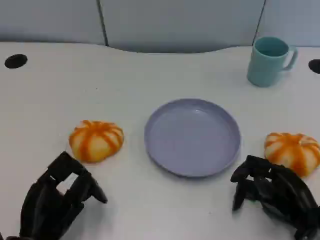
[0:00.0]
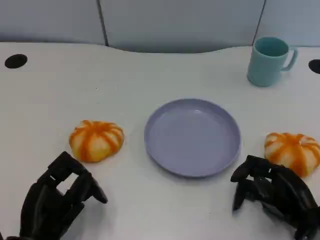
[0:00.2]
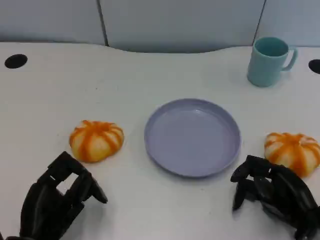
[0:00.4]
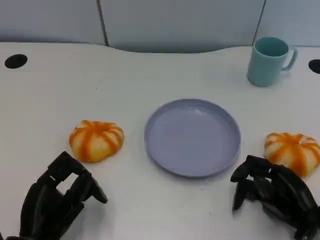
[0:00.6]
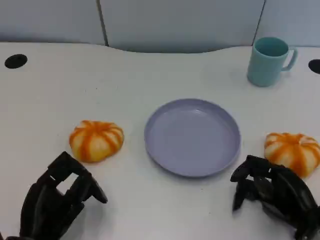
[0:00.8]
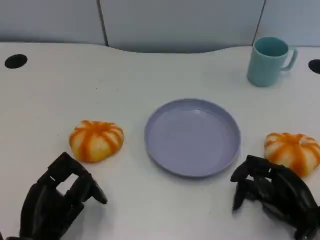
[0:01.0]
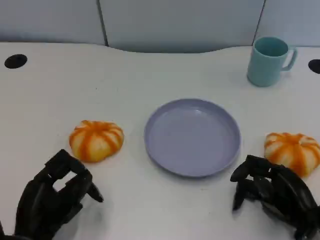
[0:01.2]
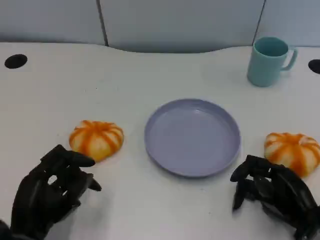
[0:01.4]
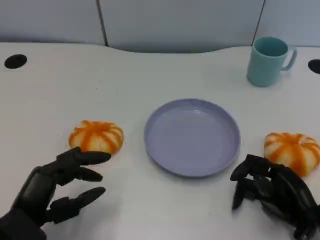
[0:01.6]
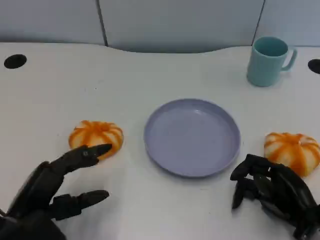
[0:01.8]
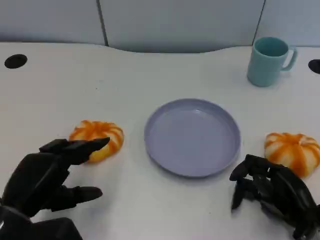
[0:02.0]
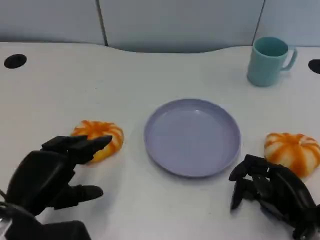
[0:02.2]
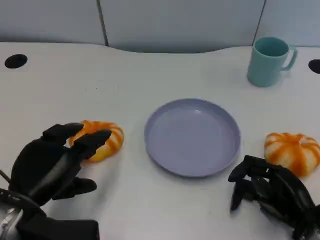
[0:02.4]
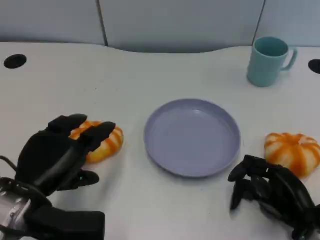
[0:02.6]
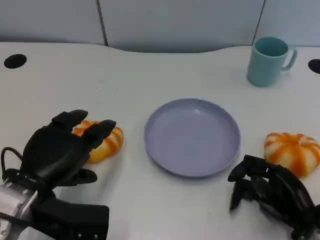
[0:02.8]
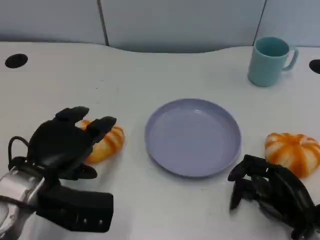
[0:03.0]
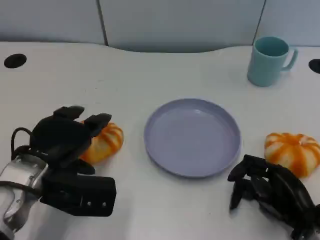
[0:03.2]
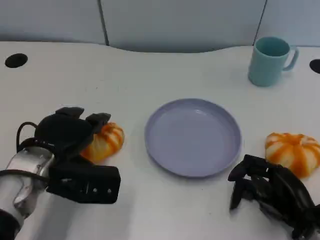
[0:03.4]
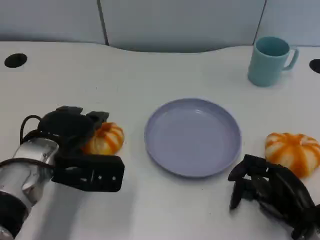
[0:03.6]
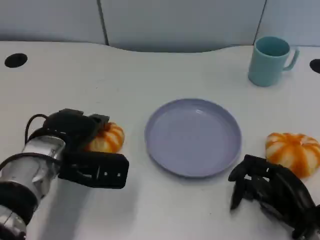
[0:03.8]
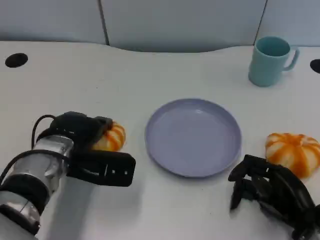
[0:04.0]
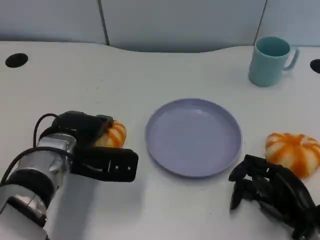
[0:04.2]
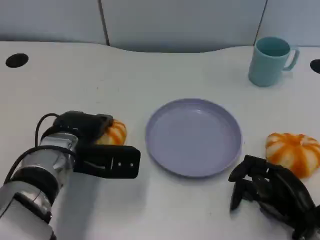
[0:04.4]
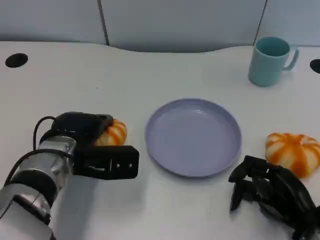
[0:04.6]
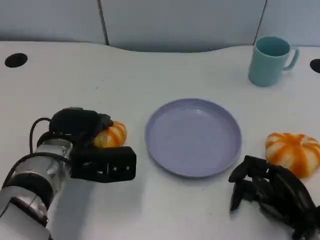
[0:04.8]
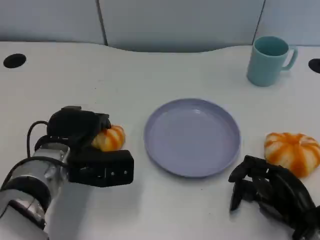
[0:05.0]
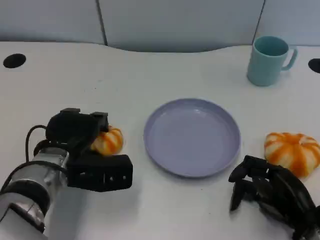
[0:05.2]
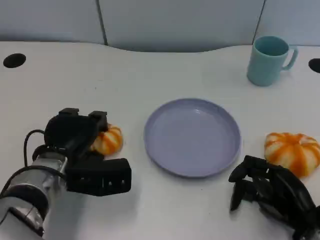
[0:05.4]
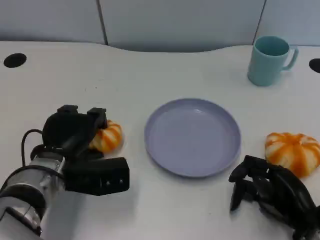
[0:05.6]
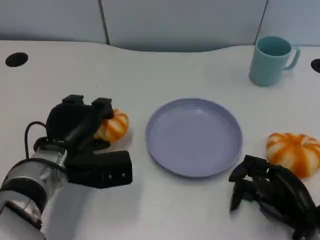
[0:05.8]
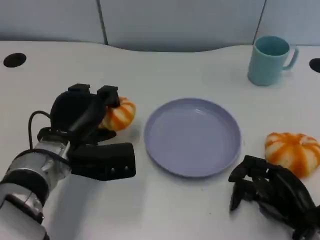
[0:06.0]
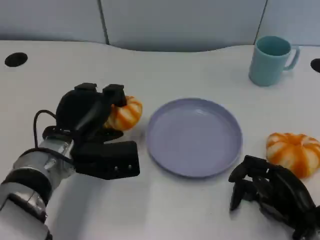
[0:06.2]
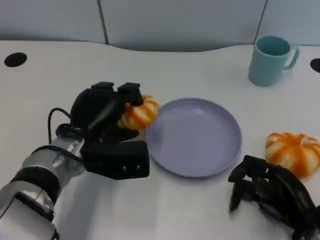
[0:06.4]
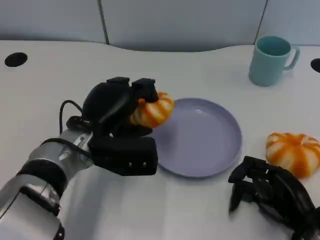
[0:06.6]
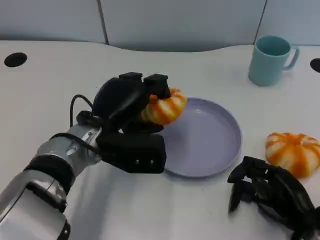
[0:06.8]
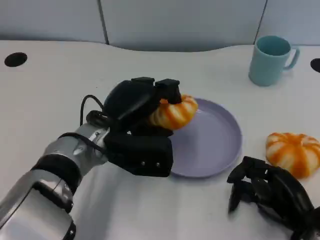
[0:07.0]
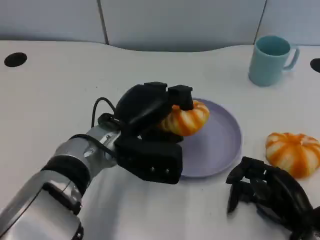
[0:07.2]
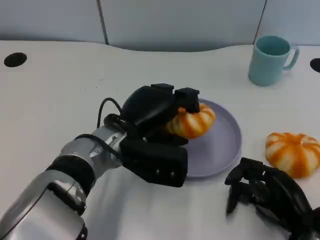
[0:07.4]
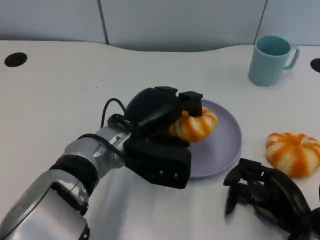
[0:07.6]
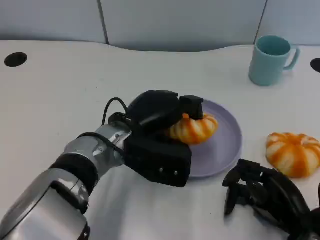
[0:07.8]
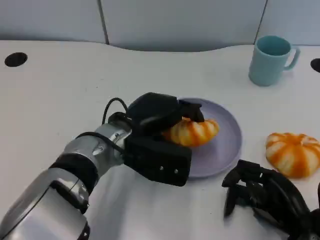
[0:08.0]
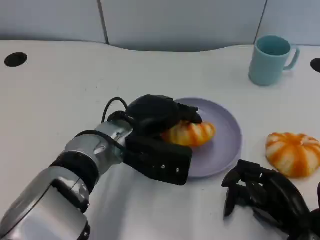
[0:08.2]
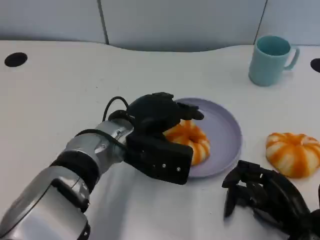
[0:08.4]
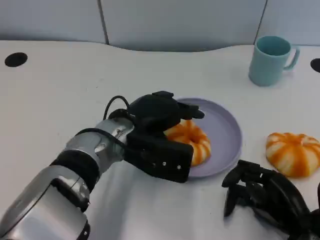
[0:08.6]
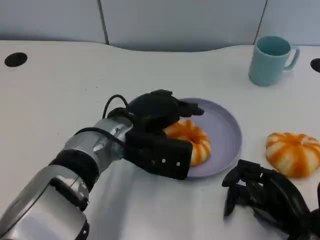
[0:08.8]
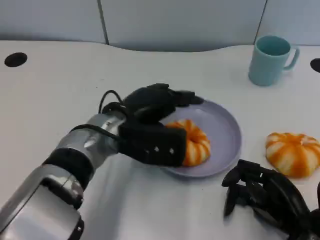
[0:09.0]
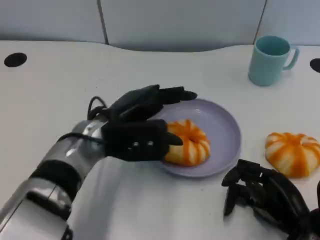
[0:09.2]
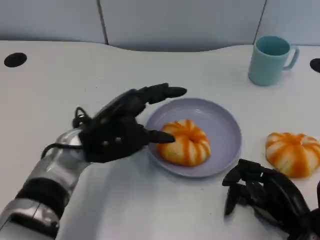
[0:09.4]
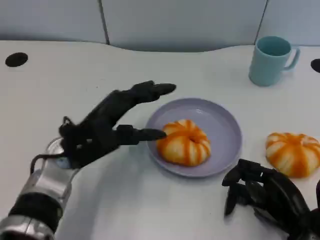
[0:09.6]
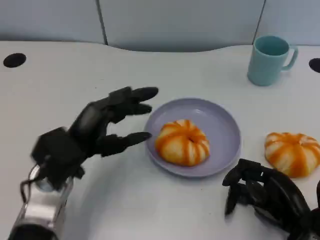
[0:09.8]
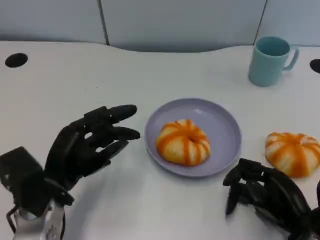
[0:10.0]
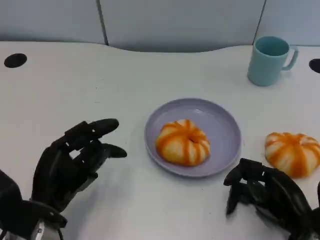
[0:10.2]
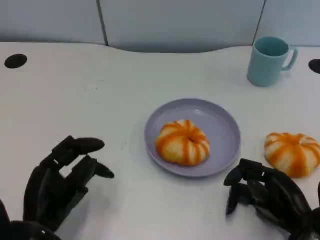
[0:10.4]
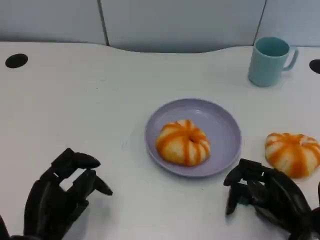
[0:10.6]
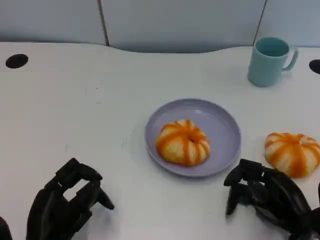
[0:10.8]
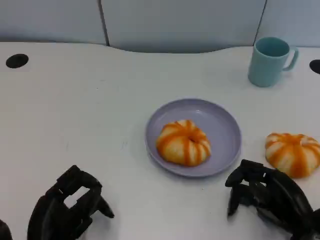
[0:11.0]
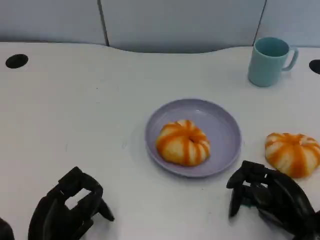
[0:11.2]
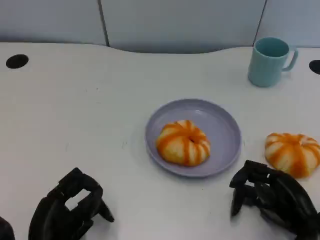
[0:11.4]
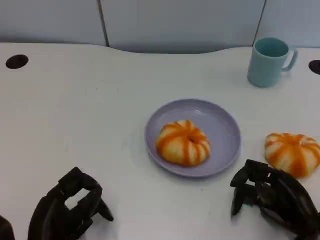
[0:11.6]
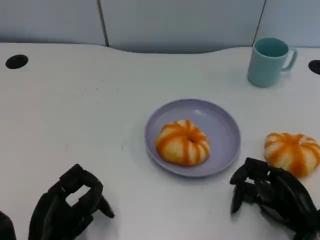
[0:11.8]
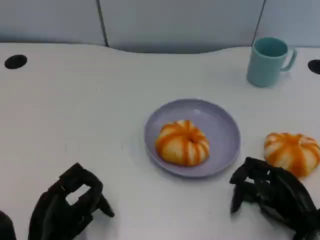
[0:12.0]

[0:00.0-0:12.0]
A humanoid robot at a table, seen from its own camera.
Task of the whole recording: Grasp the bread from the table and place it into the plate.
0:01.6 to 0:03.0: The left hand is displaced forward by some 5 cm.
0:03.0 to 0:04.4: The left hand goes roughly 5 cm forward.
0:06.0 to 0:07.6: The left hand is displaced to the right by approximately 10 cm.
0:07.6 to 0:09.0: The hands make only small movements.
0:09.0 to 0:10.4: The left hand is displaced backward, to the left and downward by approximately 20 cm.
0:10.4 to 0:12.0: The hands make only small movements.

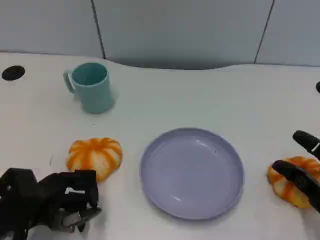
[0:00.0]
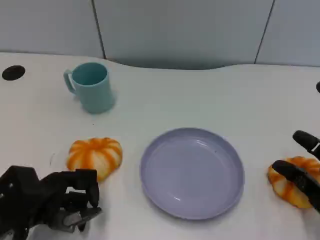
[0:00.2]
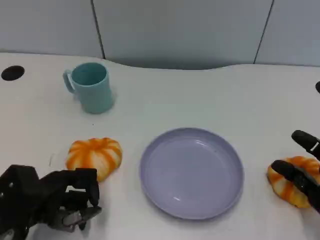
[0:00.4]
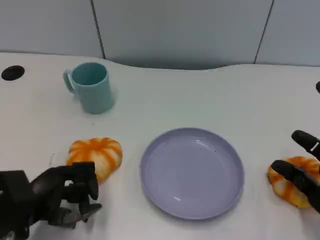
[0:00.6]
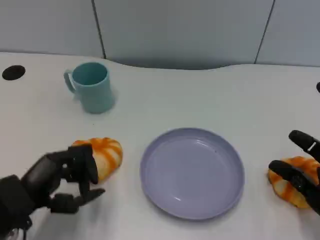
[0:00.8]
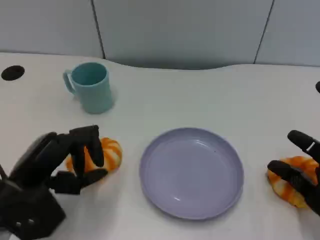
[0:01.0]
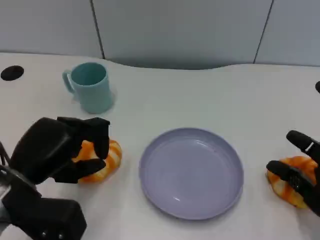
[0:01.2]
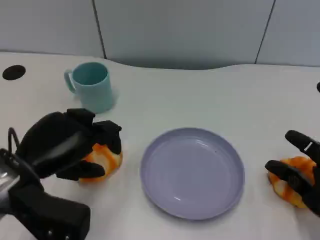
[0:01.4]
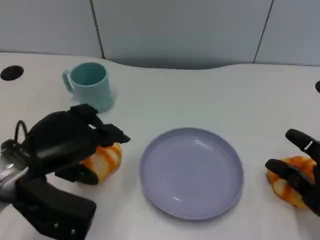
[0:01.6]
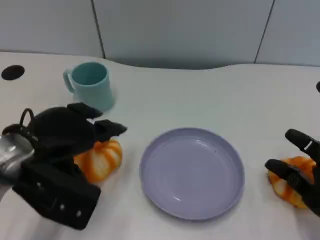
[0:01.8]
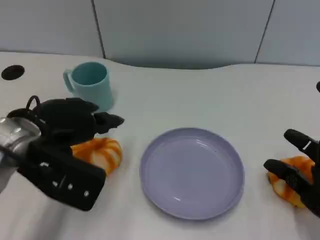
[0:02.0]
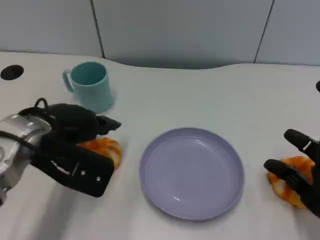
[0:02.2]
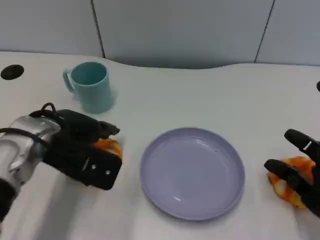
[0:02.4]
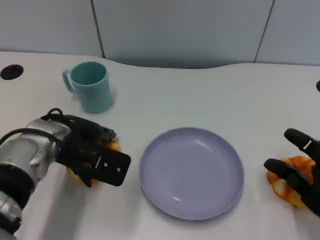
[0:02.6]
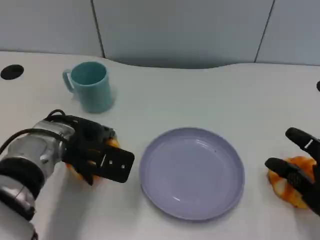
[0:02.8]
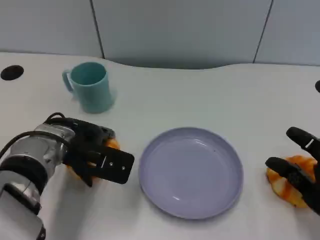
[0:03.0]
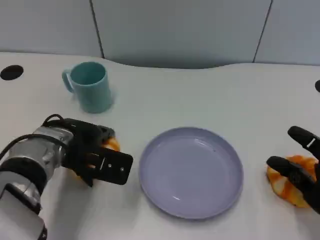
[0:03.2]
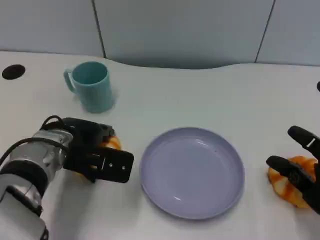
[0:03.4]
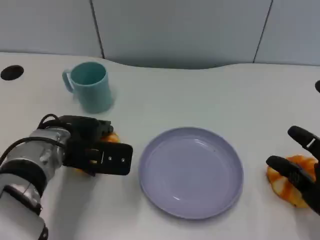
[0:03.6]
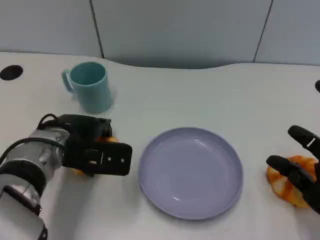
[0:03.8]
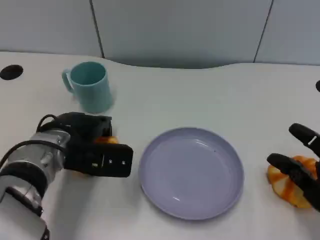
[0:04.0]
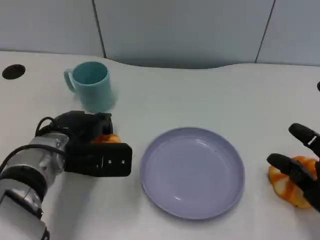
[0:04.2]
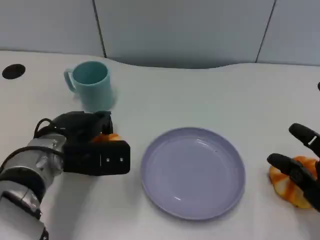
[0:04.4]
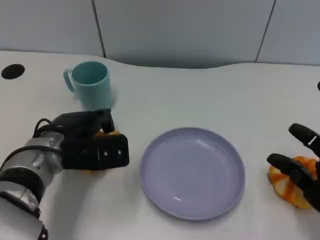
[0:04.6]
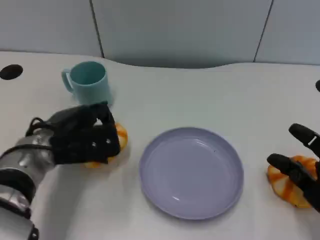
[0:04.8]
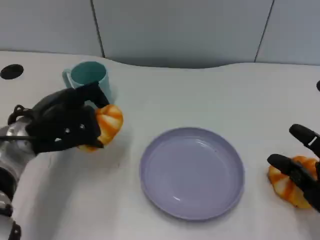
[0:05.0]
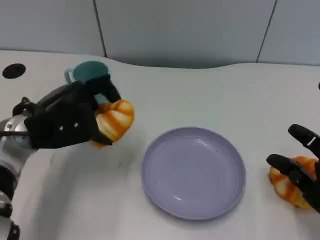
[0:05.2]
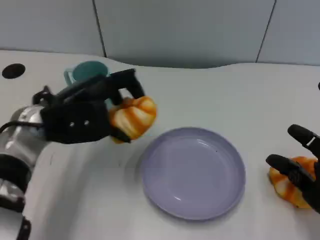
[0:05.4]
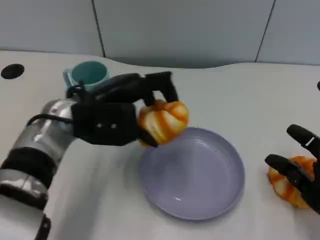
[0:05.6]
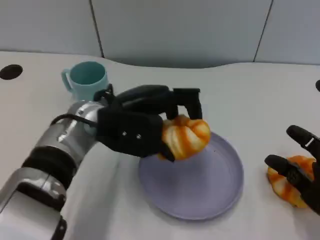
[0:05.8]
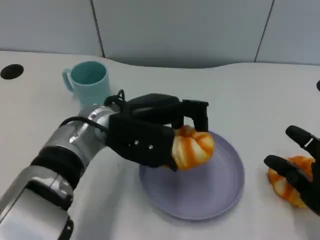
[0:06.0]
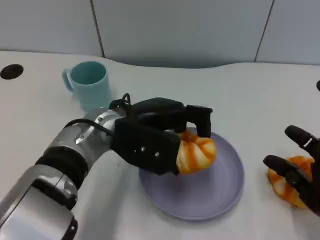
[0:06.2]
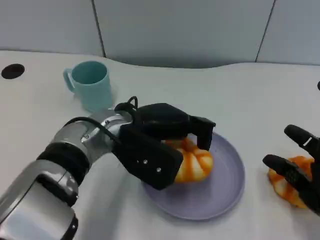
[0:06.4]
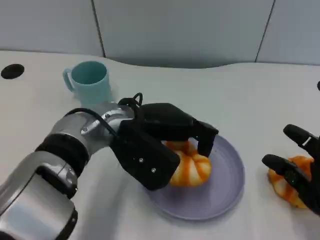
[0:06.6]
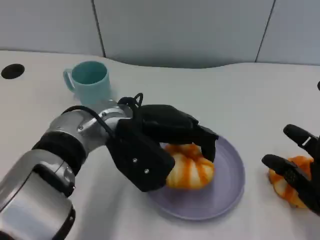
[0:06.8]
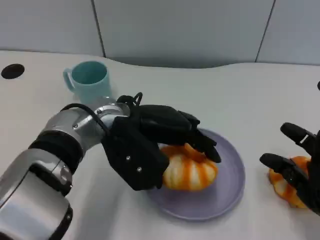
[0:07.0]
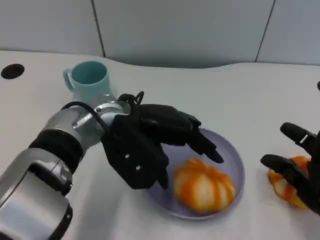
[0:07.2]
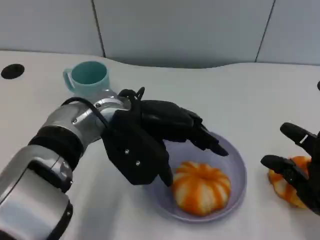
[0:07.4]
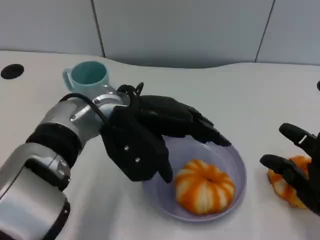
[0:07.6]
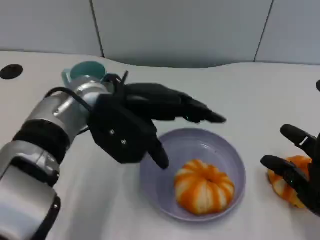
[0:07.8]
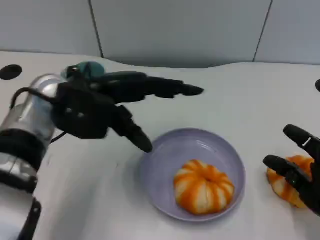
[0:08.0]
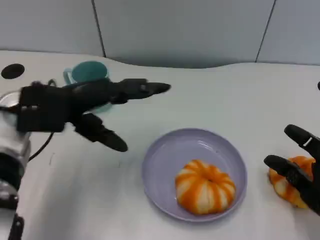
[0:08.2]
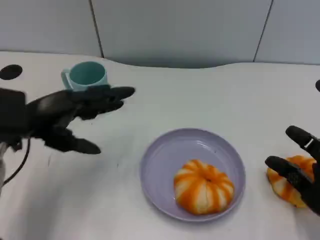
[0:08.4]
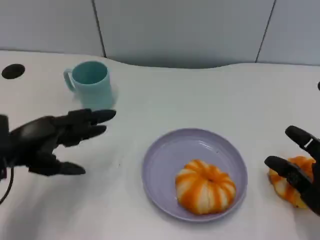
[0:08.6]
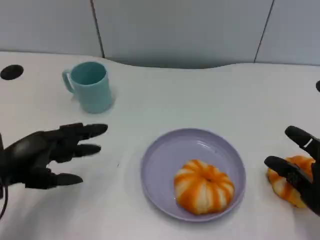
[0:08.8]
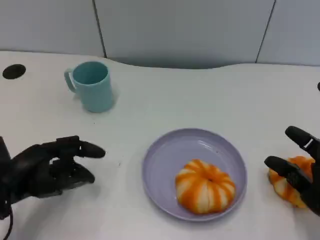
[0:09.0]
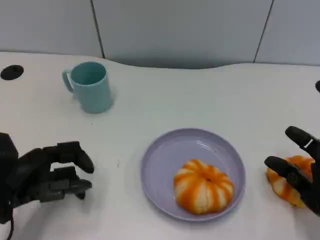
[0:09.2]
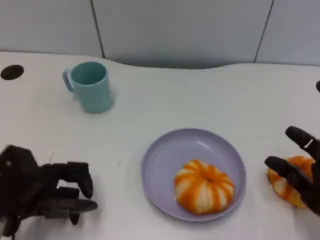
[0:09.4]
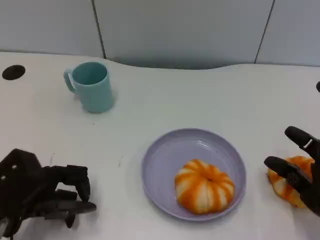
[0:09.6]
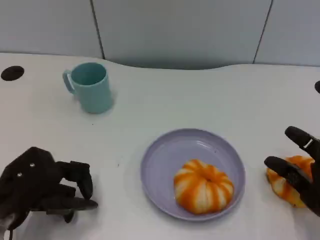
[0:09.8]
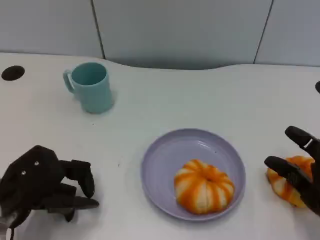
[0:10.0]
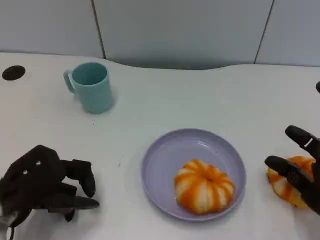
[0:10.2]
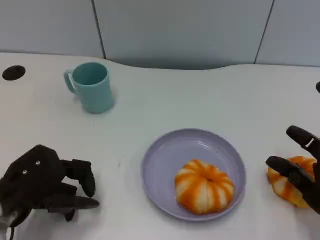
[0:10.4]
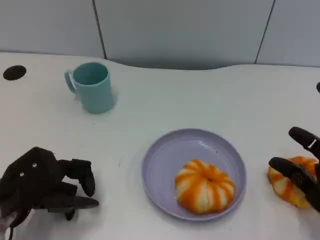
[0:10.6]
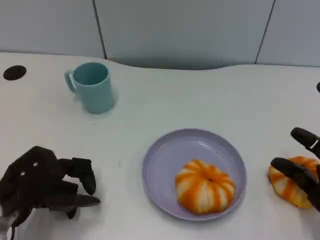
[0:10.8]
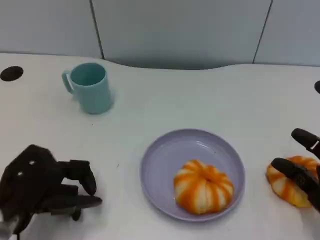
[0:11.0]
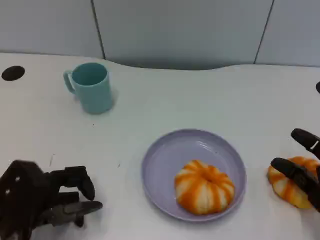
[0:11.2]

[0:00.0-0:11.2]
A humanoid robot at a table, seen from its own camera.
Task of the whole recording: Grasp the bread from the table and place it into the plate.
0:00.0 to 0:01.6: The left hand is displaced upward by some 10 cm.
0:01.6 to 0:03.2: The left hand shifts roughly 10 cm forward and downward.
0:04.8 to 0:06.4: The left hand heads to the right, covering approximately 10 cm.
0:06.4 to 0:08.0: The left hand goes roughly 10 cm to the left.
0:08.0 to 0:09.6: The left hand shifts roughly 20 cm downward, backward and to the left.
0:09.6 to 0:11.2: The hands stay close to where they were, moving slightly.
